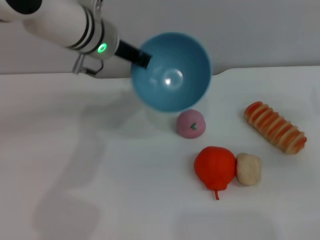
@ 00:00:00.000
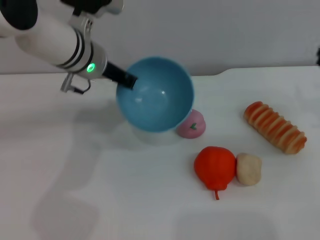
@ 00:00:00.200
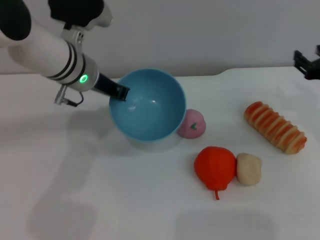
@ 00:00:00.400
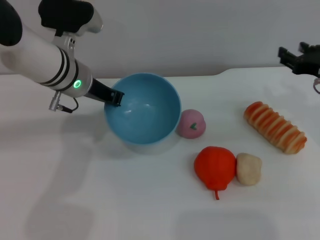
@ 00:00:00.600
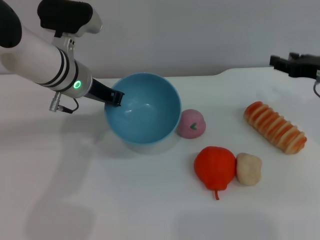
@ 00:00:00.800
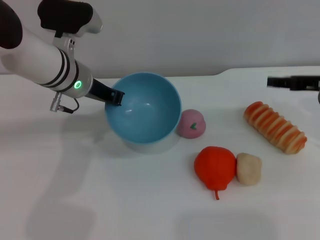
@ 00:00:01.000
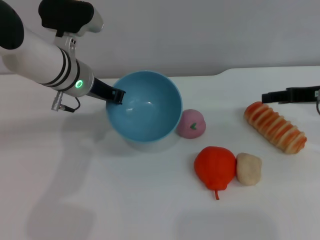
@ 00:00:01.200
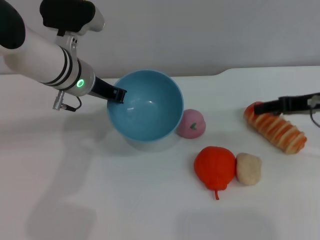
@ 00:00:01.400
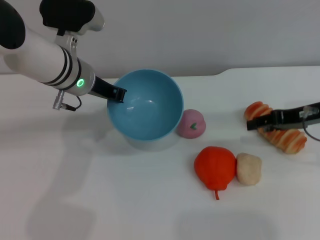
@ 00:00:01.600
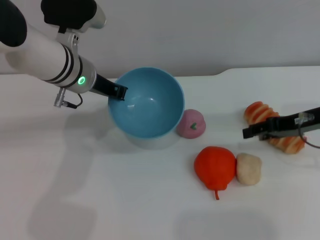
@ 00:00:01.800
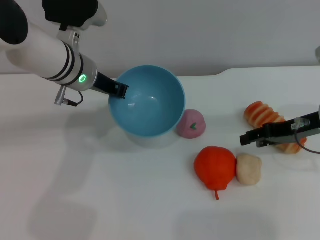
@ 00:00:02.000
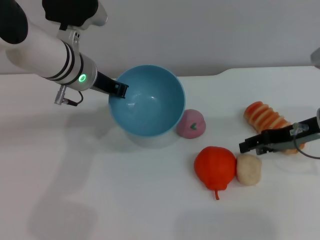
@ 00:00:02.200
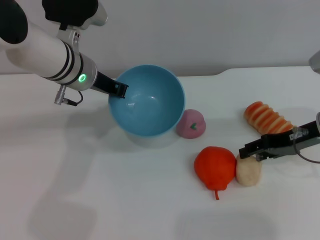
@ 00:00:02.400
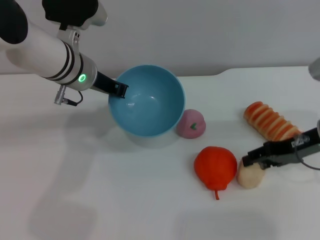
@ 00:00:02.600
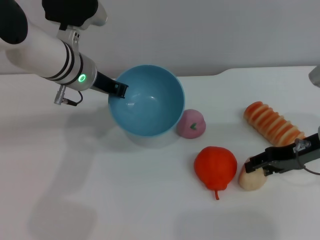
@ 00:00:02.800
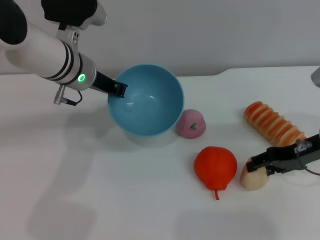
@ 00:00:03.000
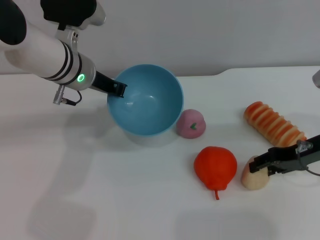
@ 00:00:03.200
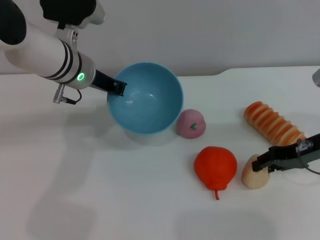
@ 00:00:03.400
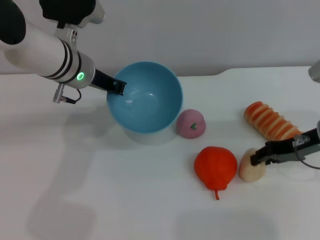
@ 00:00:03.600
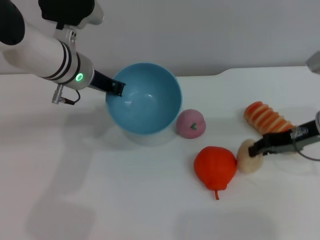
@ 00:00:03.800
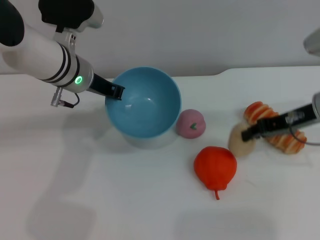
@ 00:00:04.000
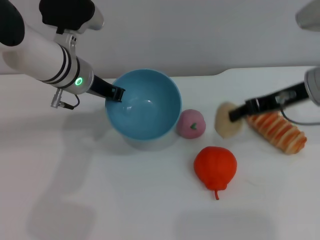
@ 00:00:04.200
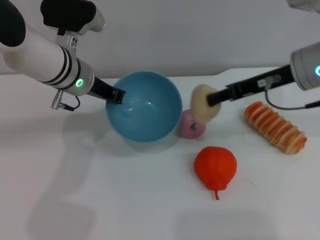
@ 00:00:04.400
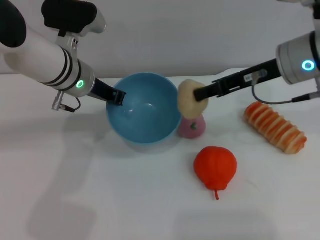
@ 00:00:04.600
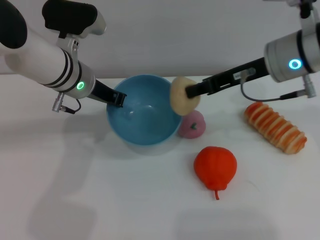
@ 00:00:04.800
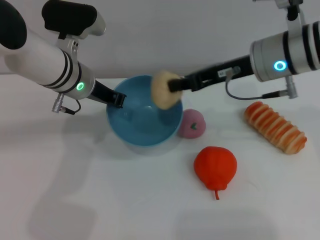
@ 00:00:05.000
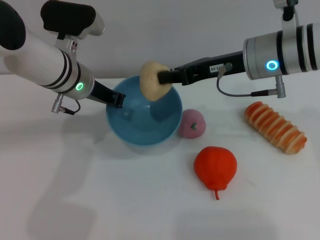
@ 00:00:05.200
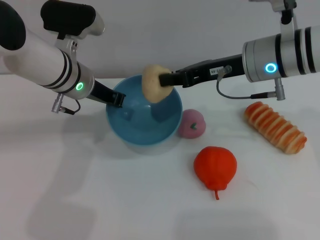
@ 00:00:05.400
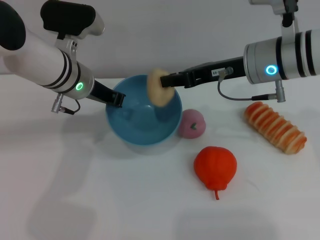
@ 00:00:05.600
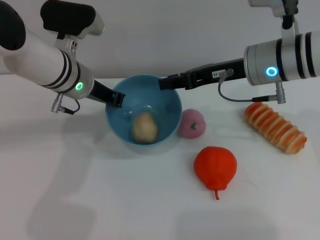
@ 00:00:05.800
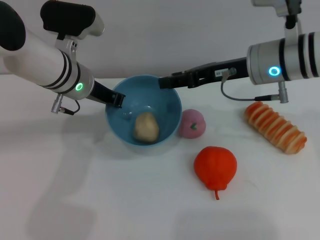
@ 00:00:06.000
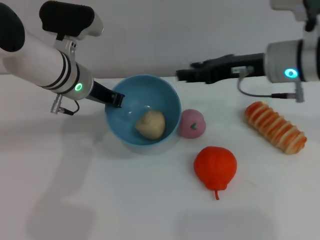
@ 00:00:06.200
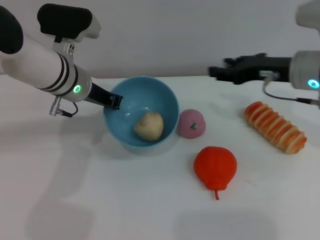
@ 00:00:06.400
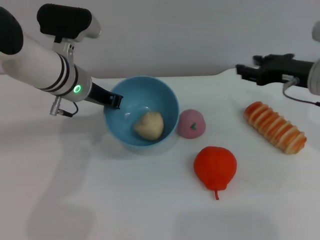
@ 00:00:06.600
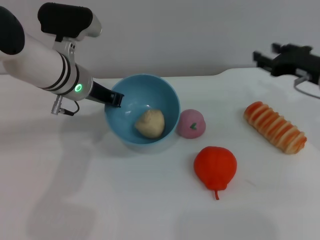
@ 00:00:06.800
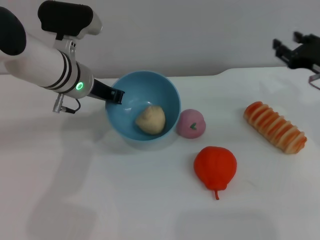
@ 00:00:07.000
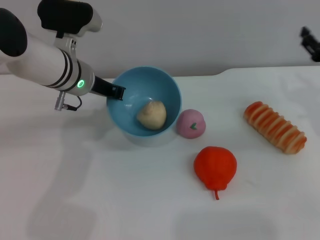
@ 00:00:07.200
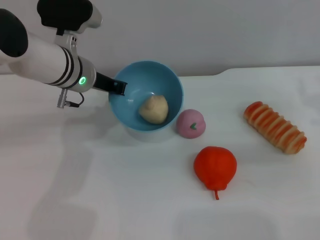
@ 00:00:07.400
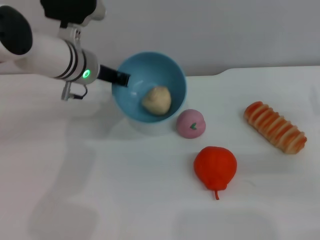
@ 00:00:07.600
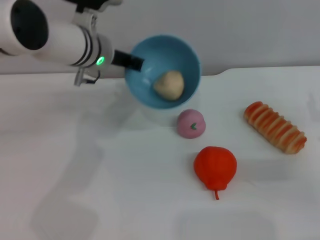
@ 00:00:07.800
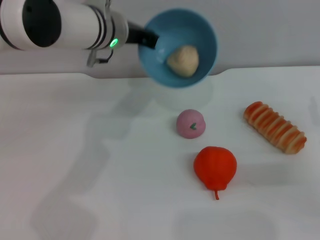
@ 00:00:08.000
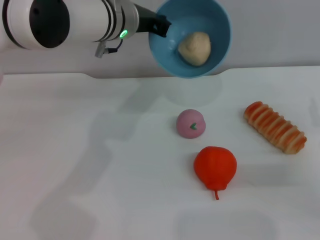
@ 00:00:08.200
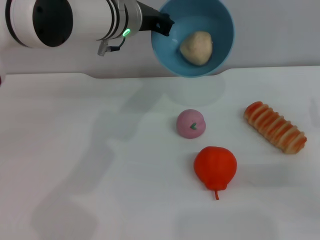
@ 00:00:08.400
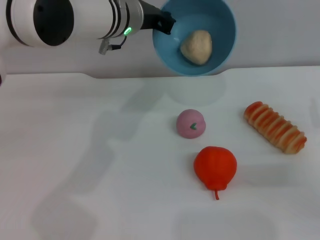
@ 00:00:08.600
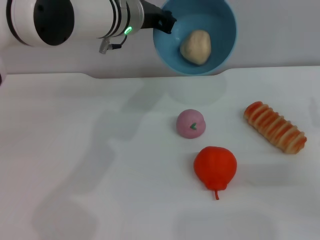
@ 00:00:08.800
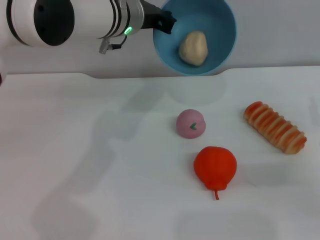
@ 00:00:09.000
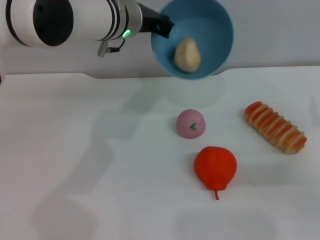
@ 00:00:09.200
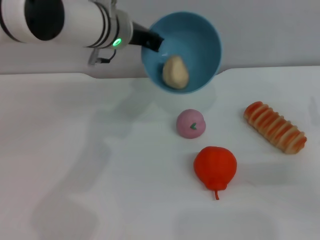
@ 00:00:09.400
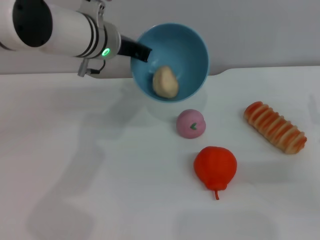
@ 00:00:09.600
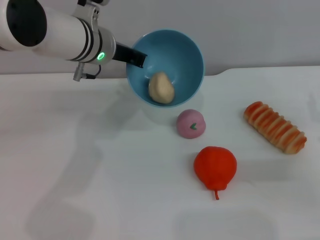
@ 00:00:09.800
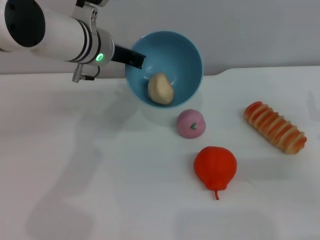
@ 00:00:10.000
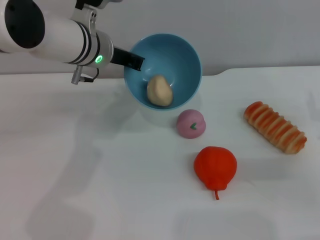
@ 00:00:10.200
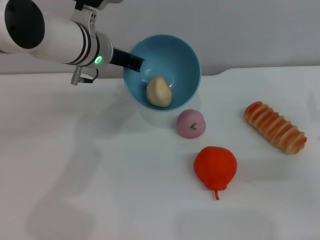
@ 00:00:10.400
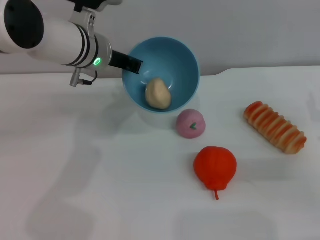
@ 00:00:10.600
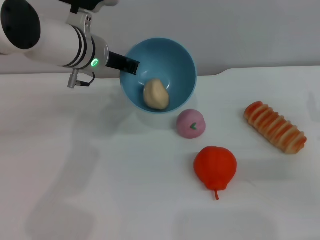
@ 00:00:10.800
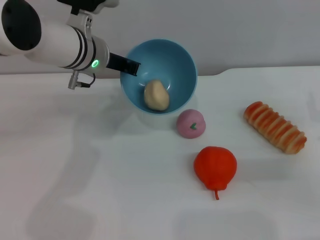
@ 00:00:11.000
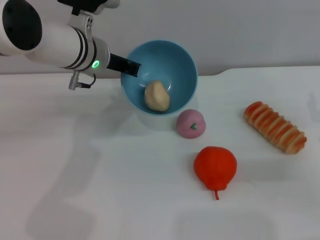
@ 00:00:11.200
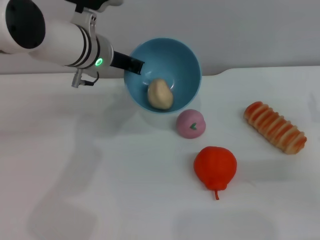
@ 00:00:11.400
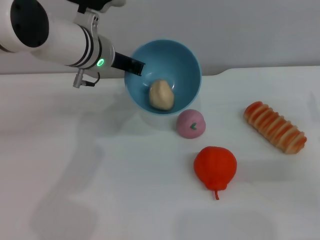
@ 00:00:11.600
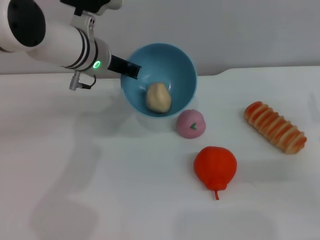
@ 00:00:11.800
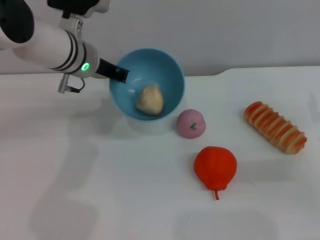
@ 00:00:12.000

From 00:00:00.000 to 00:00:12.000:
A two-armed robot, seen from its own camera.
Task of the whole recording: put the egg yolk pastry into the blue bowl and pour it out repeatedly.
Step, from 00:00:00.000 to 00:00:04.200: Pick up the egg yolk pastry with the right gripper.
Step, from 00:00:04.400 to 00:00:06.000: Place the egg yolk pastry into the bowl.
From 00:00:00.000 to 00:00:01.600: The right gripper is displaced to the left and upward by about 10 cm. Meanwhile the left gripper goes approximately 5 cm downward.
From 00:00:01.600 to 00:00:03.000: The grippers move only a little.
From 00:00:03.000 to 00:00:04.400: The right gripper heads upward and to the left, covering approximately 10 cm, and closes up.
From 00:00:04.400 to 00:00:06.000: The right gripper ends up roughly 5 cm from where it was, and opens its fingers.
From 00:00:06.000 to 00:00:07.600: The right gripper travels to the right, downward and backward by roughly 25 cm.
From 00:00:07.600 to 00:00:09.000: The left gripper is displaced to the right and upward by roughly 10 cm.
From 00:00:09.000 to 00:00:10.400: The left gripper ends up about 5 cm from where it was.
From 00:00:10.400 to 00:00:12.000: The grippers move only a little.

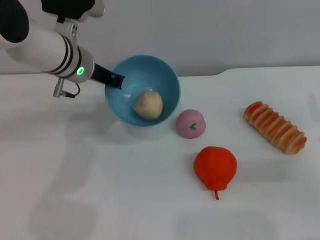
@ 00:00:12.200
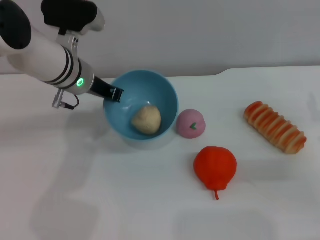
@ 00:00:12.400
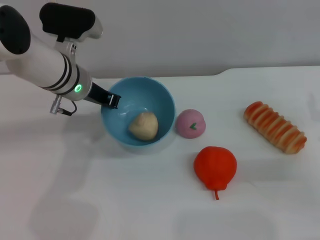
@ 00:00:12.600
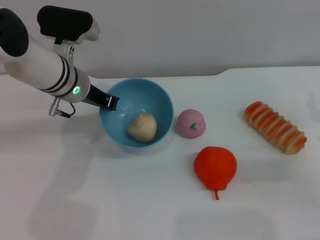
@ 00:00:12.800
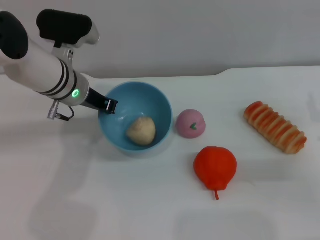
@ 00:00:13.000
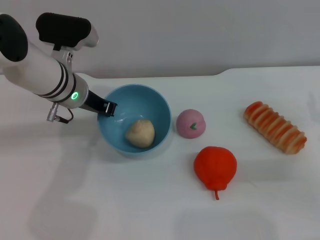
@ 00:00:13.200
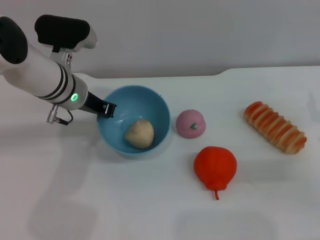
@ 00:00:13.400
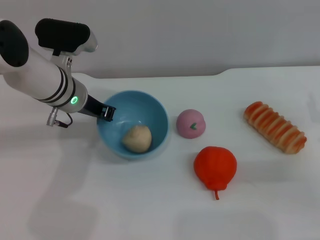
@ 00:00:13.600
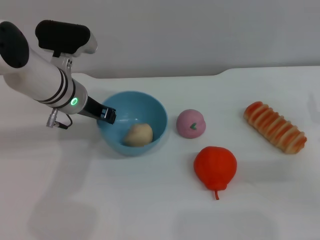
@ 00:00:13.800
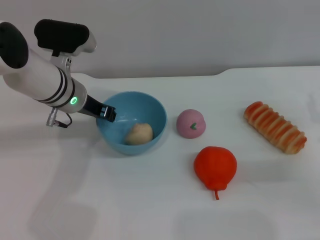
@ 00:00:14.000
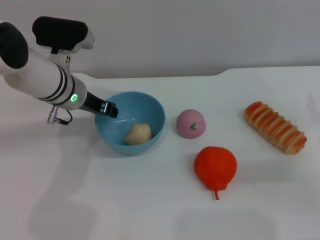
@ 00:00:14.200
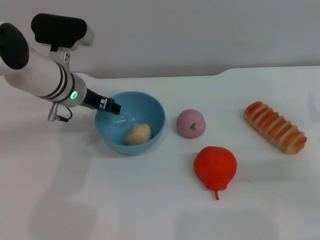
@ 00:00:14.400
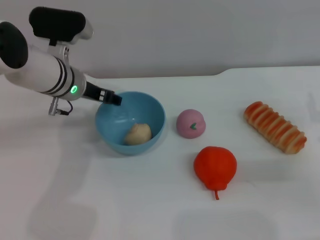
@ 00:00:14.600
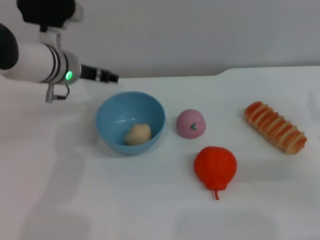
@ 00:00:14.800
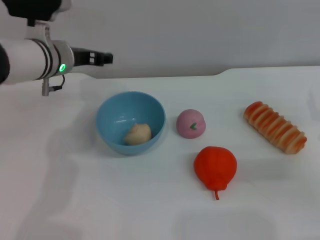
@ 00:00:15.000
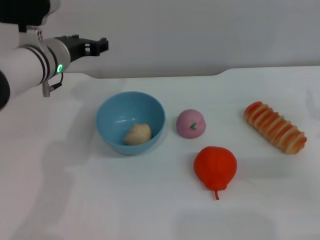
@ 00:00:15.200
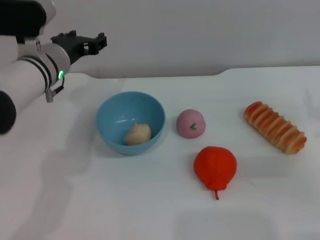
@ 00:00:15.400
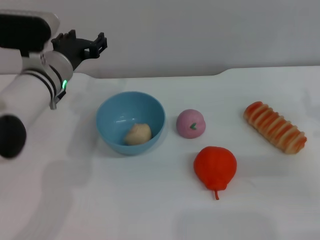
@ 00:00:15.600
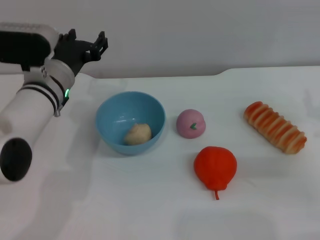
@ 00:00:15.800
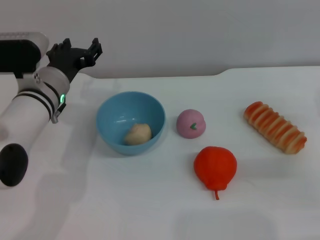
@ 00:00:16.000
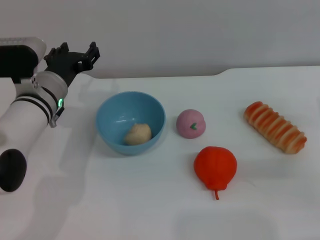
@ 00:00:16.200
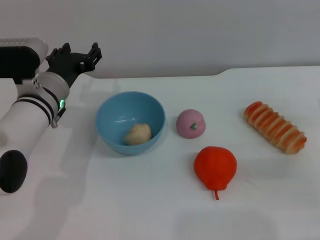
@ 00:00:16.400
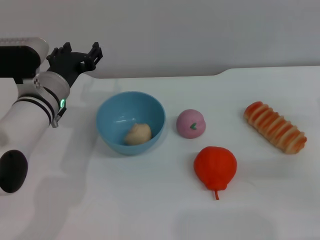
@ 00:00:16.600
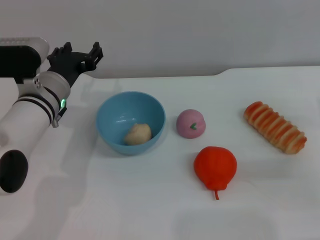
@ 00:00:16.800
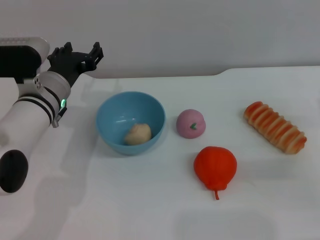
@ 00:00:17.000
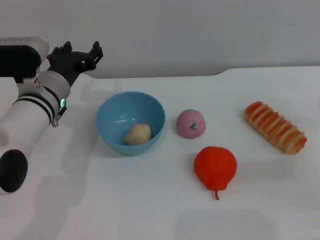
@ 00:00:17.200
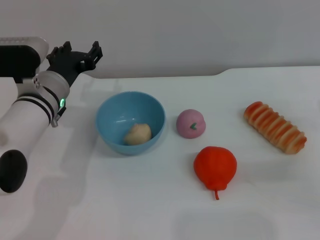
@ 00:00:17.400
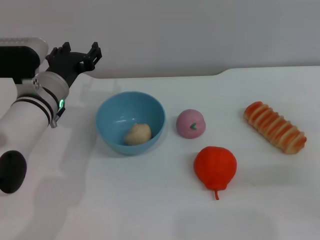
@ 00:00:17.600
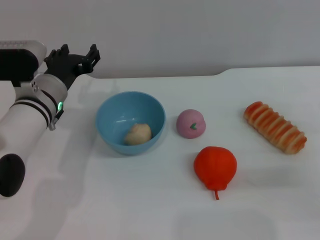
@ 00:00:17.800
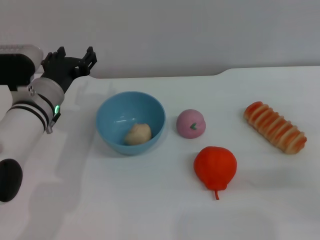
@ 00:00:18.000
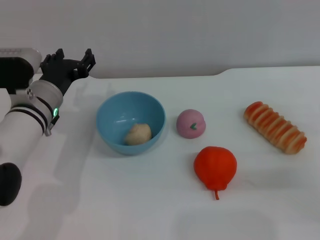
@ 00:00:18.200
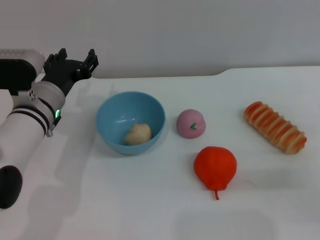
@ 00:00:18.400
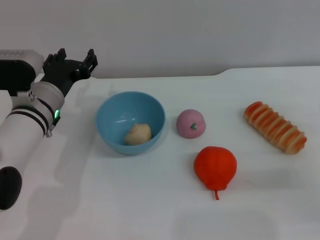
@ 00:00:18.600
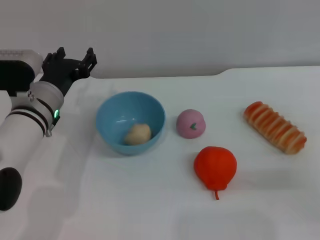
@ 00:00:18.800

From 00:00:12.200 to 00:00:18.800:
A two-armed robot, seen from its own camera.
Task of the whole recording: put the egg yolk pastry into the blue bowl and pour it out repeatedly.
Step, from 00:00:12.200 to 00:00:14.800: Place the bowl on the table.
From 00:00:12.200 to 00:00:13.800: The grippers move only a little.
From 00:00:13.800 to 00:00:15.400: The left gripper opens.
From 00:00:15.400 to 00:00:17.200: The left gripper shifts by roughly 5 cm.
From 00:00:17.200 to 00:00:18.800: The grippers move only a little.
